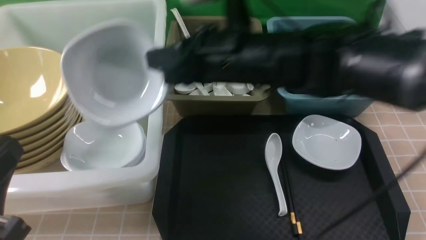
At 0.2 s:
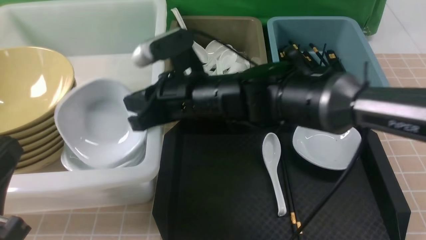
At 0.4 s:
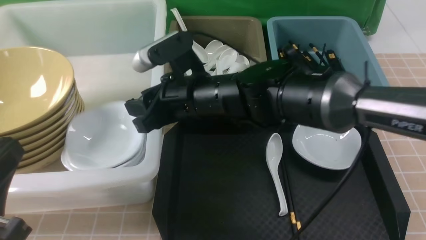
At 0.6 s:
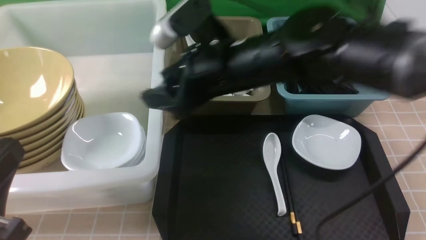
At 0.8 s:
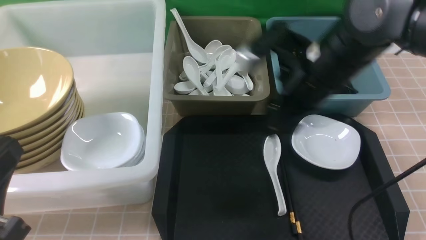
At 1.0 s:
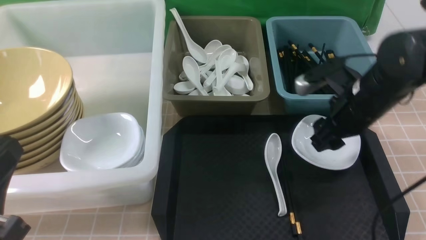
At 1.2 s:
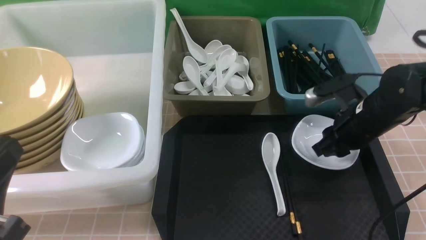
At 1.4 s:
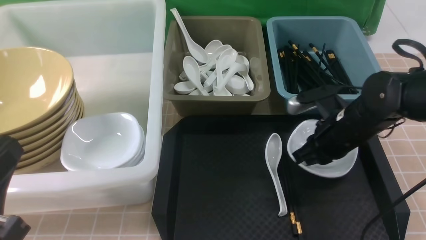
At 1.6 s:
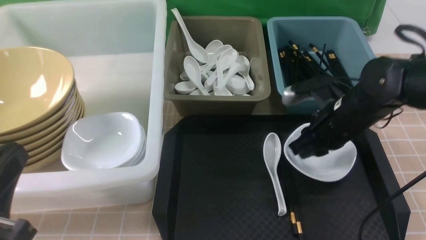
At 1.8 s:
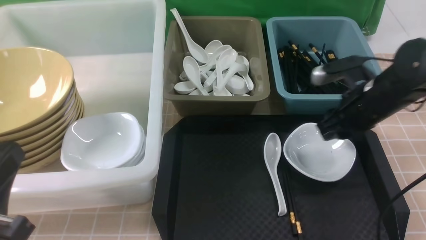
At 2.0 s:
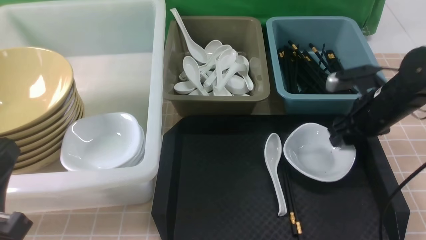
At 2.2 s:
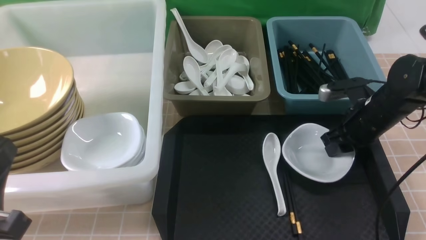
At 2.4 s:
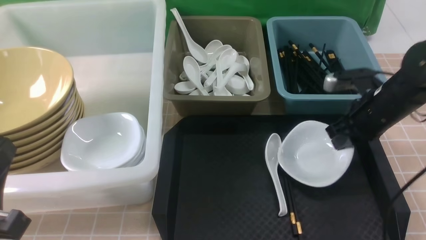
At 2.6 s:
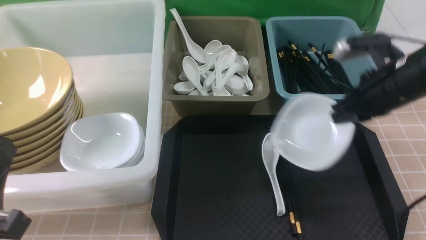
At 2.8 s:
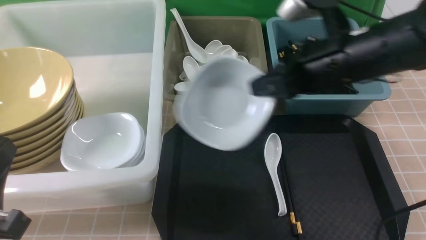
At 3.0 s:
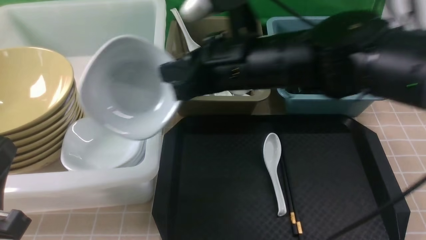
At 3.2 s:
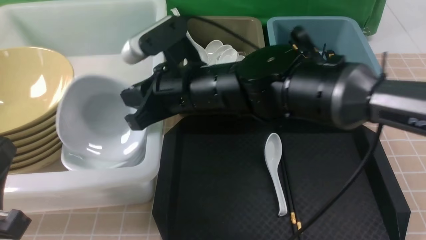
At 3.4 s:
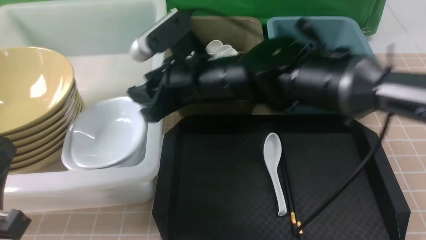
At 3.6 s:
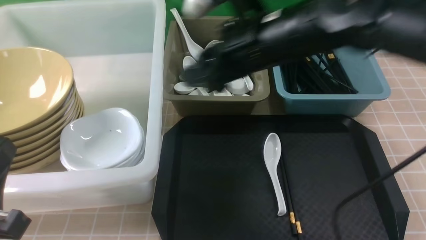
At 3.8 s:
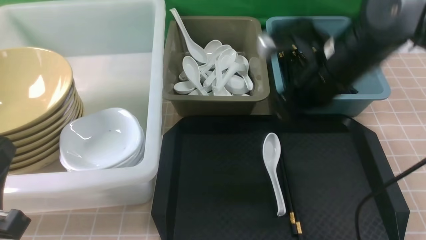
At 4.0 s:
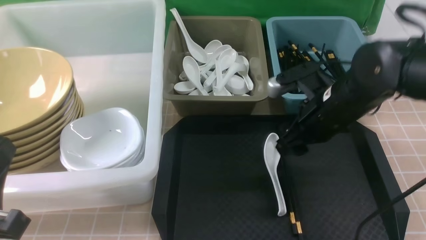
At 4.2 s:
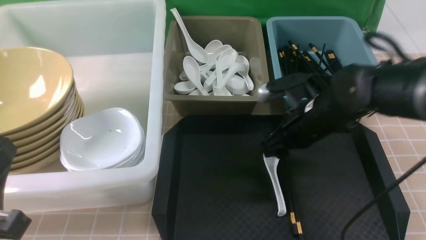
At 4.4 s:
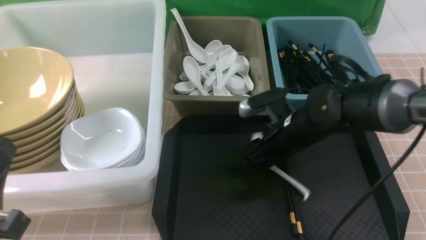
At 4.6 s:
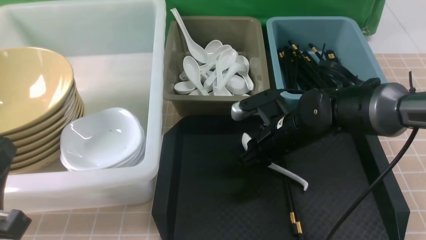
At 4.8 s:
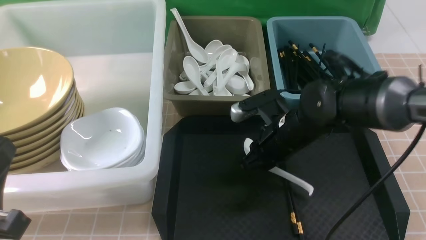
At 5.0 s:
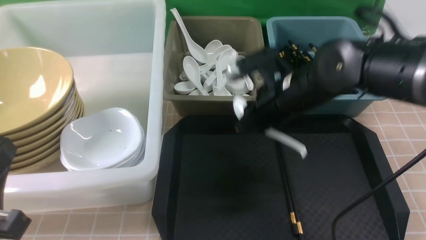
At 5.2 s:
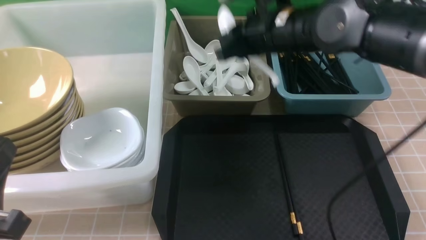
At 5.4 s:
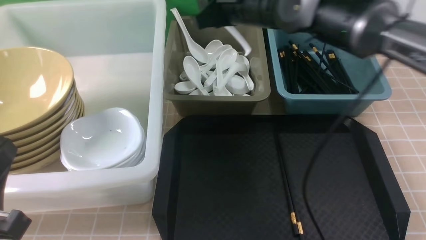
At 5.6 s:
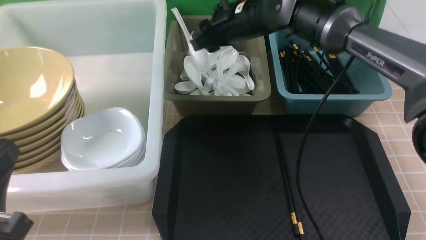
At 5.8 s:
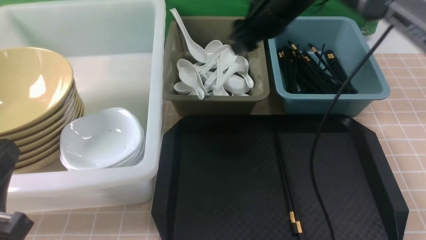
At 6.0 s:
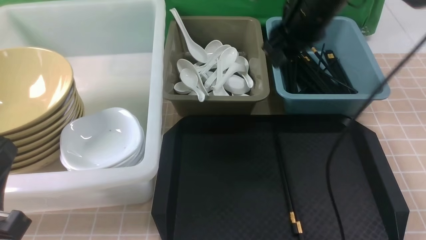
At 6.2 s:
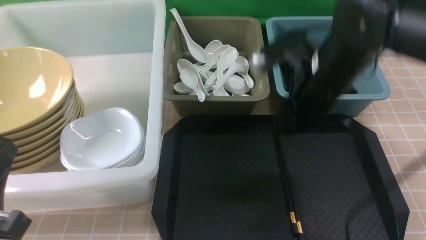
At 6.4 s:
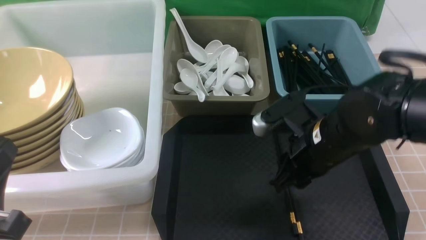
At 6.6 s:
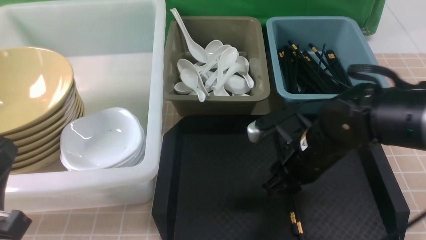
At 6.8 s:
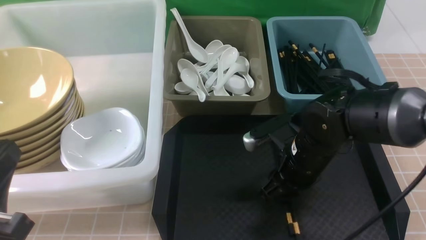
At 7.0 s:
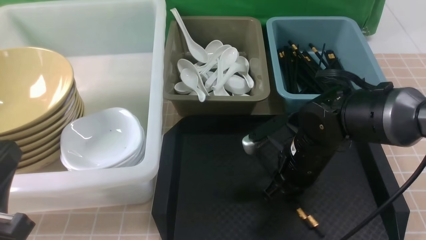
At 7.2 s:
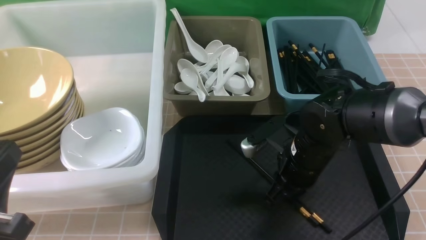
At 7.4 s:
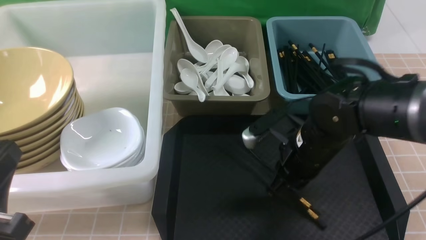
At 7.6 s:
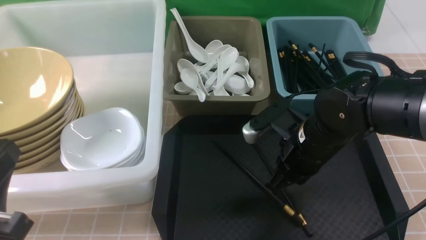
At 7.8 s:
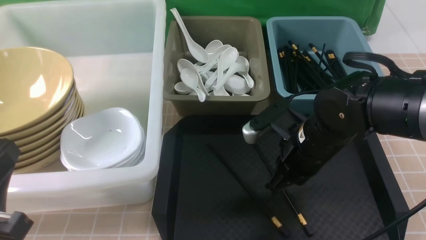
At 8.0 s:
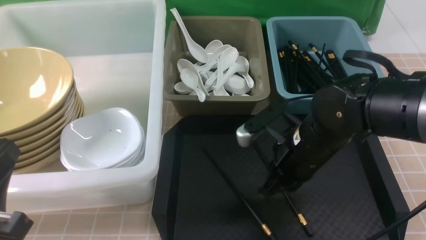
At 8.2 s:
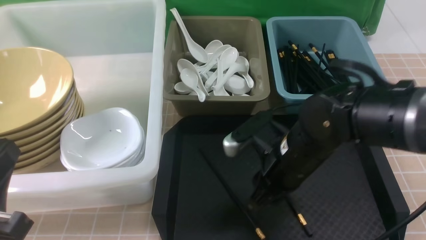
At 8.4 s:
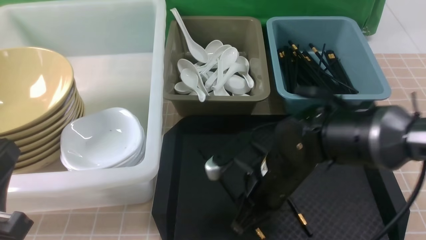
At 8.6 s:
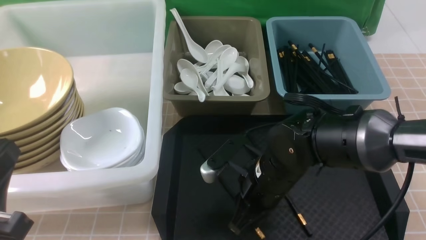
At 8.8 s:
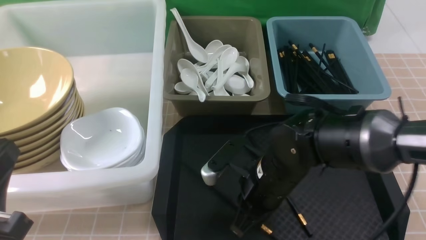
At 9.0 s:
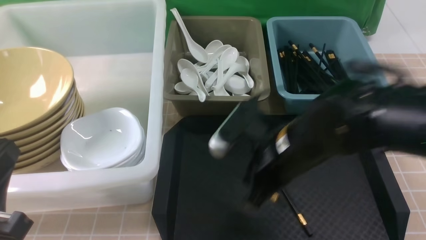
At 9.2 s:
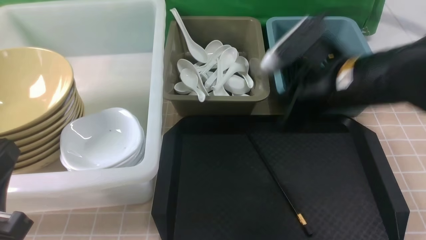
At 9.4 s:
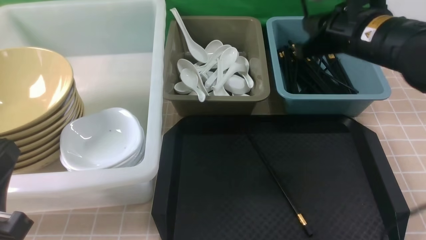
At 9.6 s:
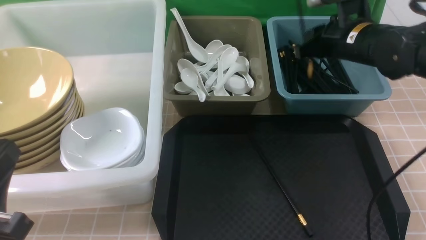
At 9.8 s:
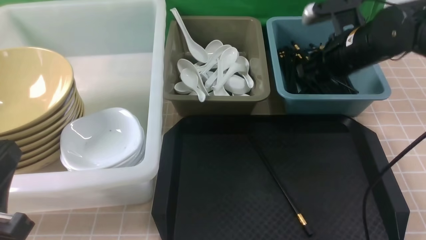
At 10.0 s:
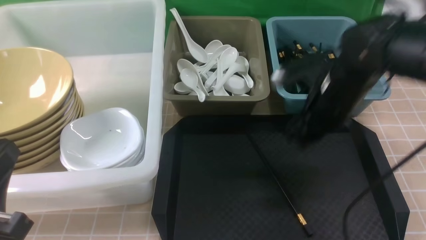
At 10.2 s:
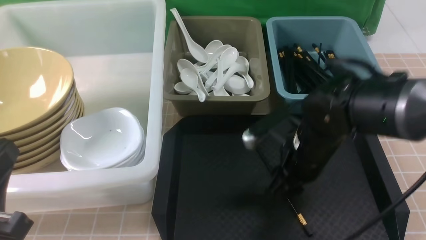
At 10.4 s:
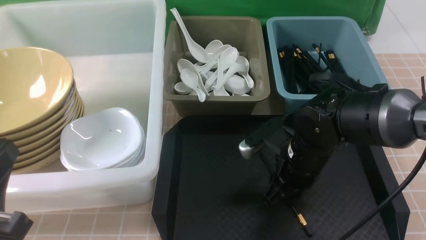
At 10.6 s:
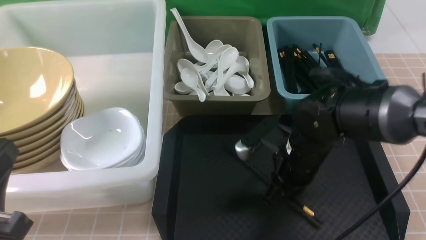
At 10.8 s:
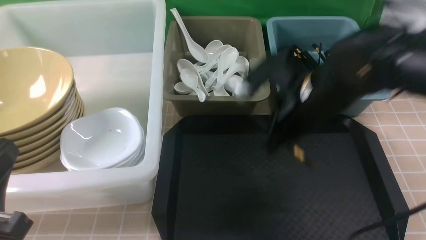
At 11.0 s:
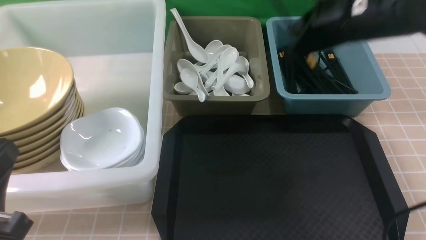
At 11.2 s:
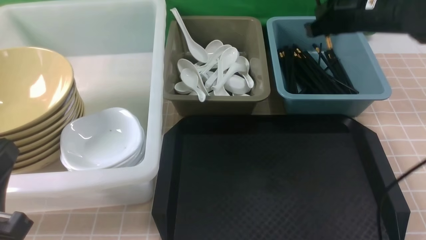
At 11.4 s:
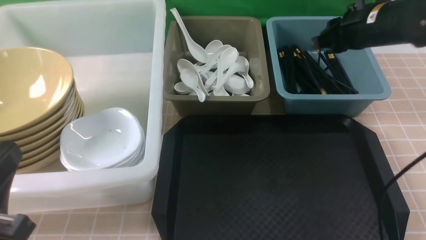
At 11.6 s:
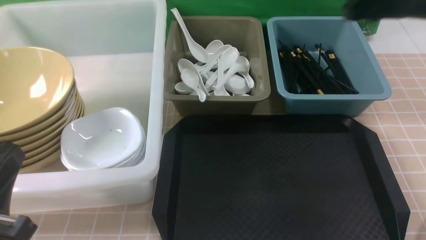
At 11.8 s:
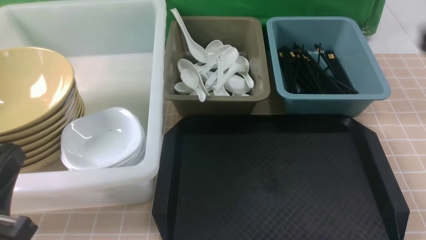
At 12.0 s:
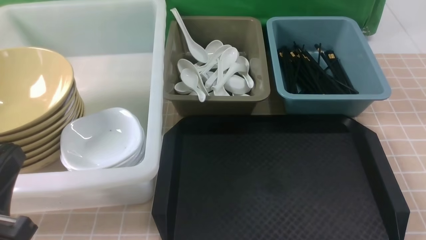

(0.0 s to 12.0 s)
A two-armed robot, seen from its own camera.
Task of the whole recording: on brown table put chopsticks spoon bowls plates into blue grey white boxes.
Step, 0.8 s - 2.4 s: use the right arm to grab the plate.
Step, 2.6 s - 3.8 s: use the right arm to put the plate into the large storage box on the left.
Step, 4.0 s - 4.8 s: use the right arm to grab the soup spoon in the middle.
Step, 5.0 s - 5.8 s: use the right arm to put the soup spoon into the small storage box in the middle.
Step, 6.0 s - 8.8 s: use the right arm to grab a chopstick.
Step, 9.0 s - 9.8 s: use the right arm to put a chopstick into the small storage box on the right.
Step, 10.0 s - 10.6 s: use the right arm to grab a chopstick.
Step, 10.8 s - 11.4 s: use the right arm to put a chopstick into the small storage box on the right.
0.0 s - 1.6 s: The right gripper travels to the right and downward by approximately 20 cm, and opens, then closes again.
1.6 s - 3.0 s: The right gripper moves to the left and upward, approximately 20 cm, and opens and closes again.
3.0 s - 4.4 s: The right gripper heads downward and to the right, covering approximately 15 cm, and opens its fingers.
4.4 s - 6.0 s: The right gripper shifts roughly 15 cm upward, and closes, then opens again.
6.0 s - 7.6 s: The right gripper shifts roughly 15 cm downward and backward, and closes.
7.6 s - 9.0 s: The right gripper changes place by approximately 5 cm, and opens, then closes once more.
9.0 s - 10.4 s: The right gripper is displaced downward by roughly 5 cm, travels forward and back again, about 15 cm each way, and opens.
10.4 s - 12.0 s: The right gripper goes roughly 25 cm backward, to the right and upward, and closes up.

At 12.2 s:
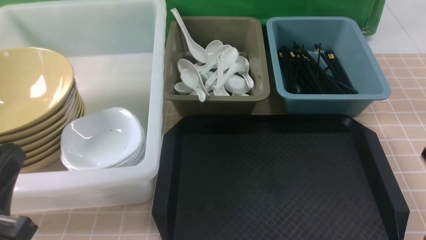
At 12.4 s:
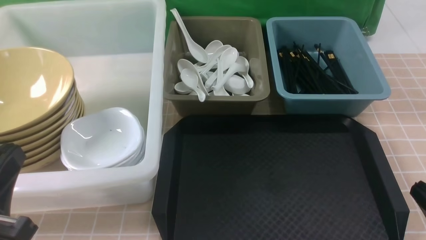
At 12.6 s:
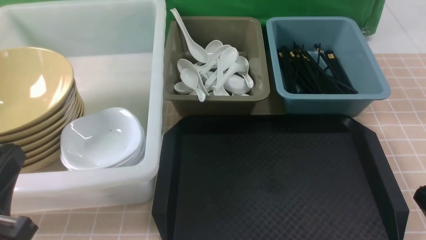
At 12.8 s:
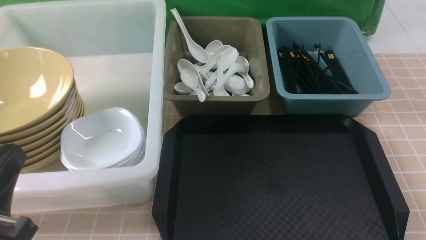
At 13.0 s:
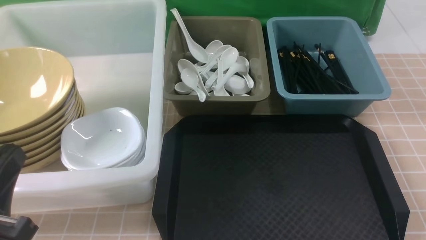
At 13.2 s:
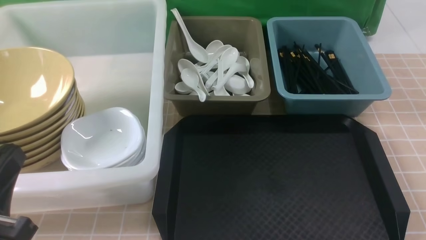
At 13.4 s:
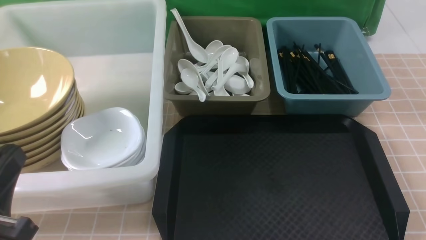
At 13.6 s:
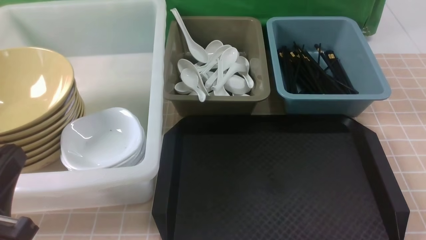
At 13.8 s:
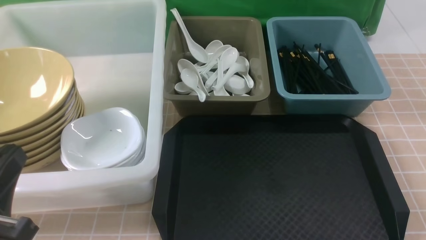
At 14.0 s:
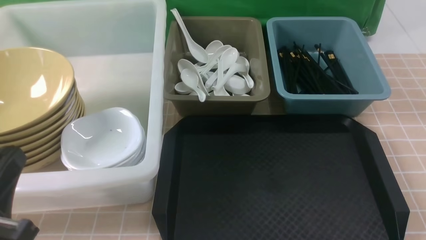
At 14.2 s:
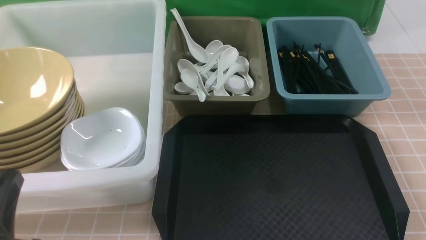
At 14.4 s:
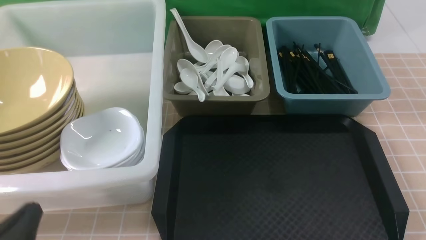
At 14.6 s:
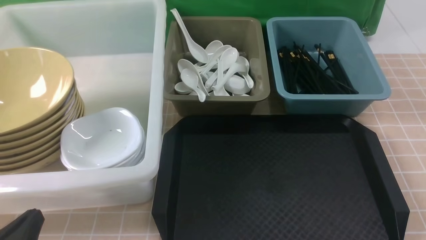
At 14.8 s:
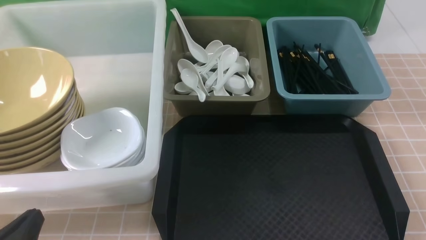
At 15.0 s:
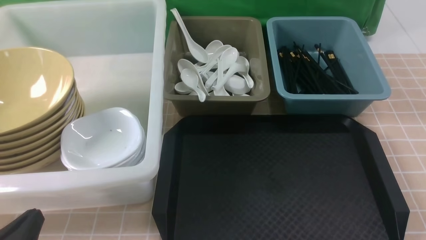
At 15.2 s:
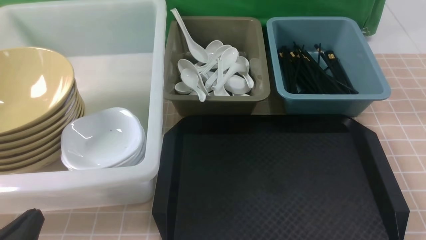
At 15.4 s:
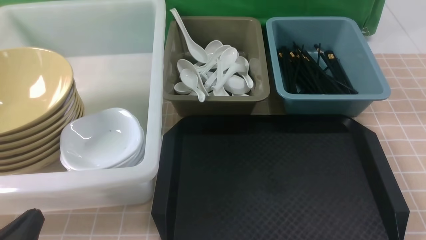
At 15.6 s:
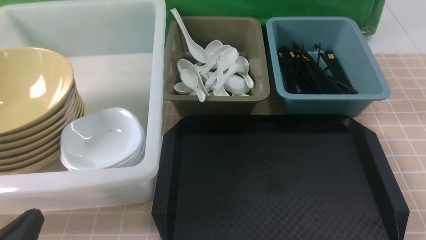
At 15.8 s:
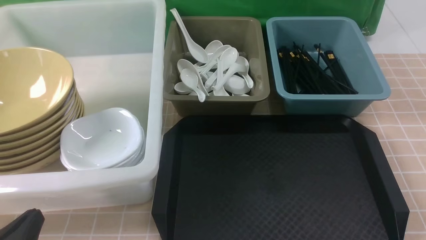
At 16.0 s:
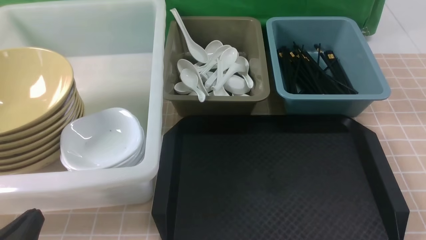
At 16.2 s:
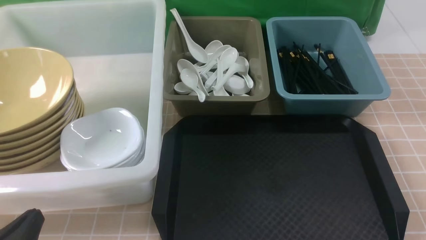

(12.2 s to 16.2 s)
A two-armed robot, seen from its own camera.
Task of the whole recording: on brown table put chopsticks spoon bowls plates into blue grey white boxes.
13.6 s - 14.8 s: The left gripper moves downward, roughly 10 cm.
14.8 s - 16.2 s: Neither gripper changes place.
